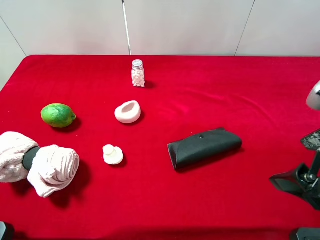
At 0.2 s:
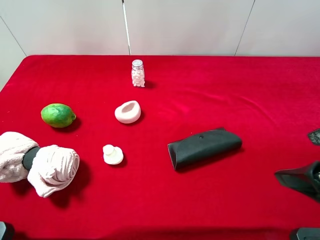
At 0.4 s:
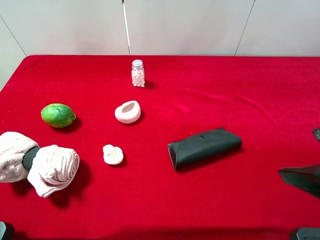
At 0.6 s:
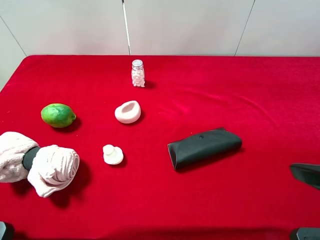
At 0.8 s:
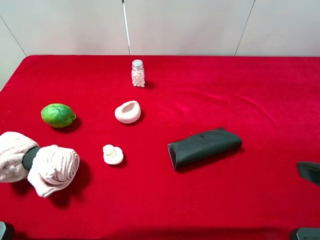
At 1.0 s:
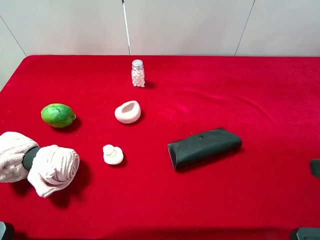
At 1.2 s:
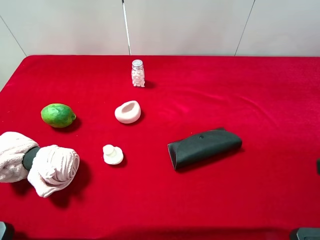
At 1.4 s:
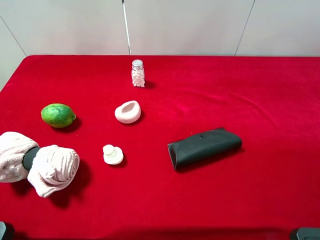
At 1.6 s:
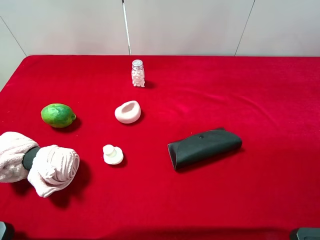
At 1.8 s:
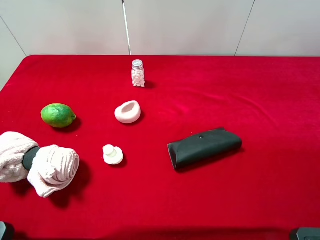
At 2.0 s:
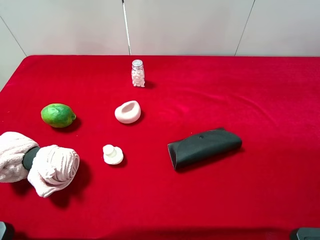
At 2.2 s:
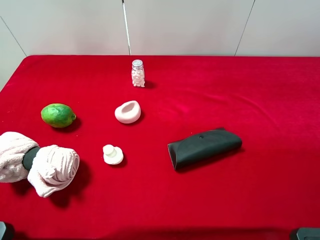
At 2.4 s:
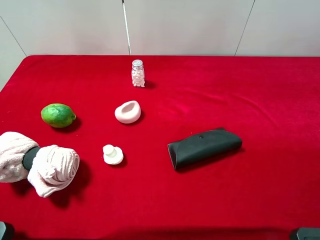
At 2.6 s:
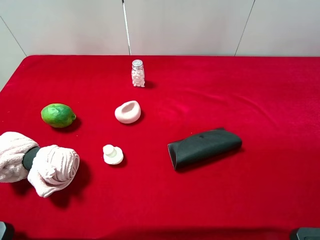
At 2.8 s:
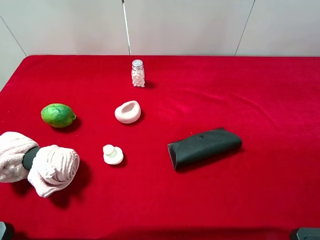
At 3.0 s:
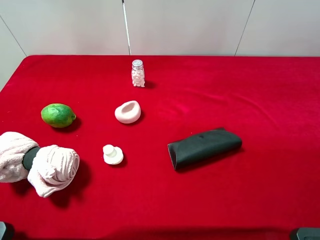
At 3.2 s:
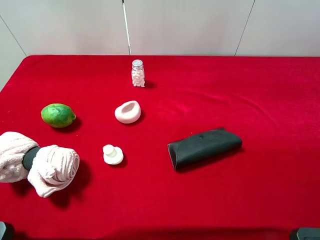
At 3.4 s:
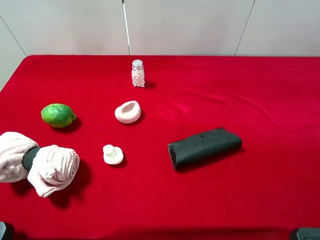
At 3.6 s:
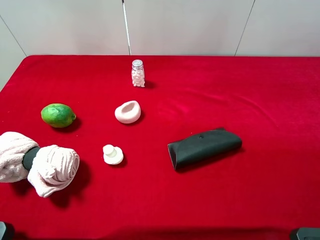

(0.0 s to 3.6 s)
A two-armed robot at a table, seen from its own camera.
Task of the whole recording: the gripper move the object.
0.0 s - 1.8 s: The right gripper heads backward and to the right, covering approximately 10 cm.
